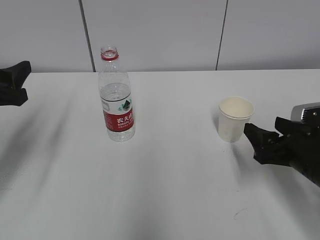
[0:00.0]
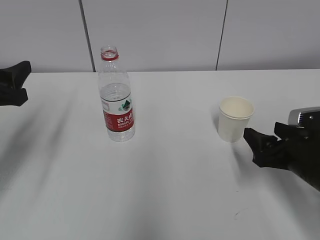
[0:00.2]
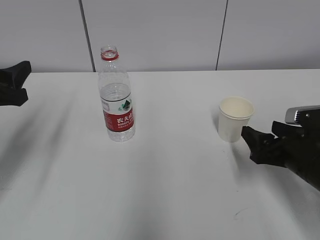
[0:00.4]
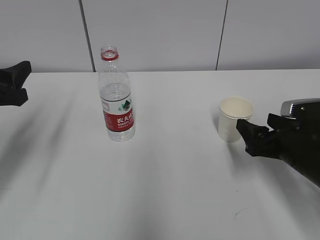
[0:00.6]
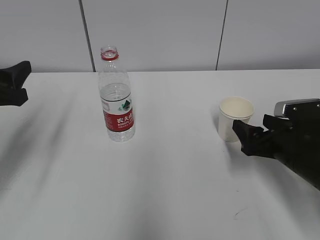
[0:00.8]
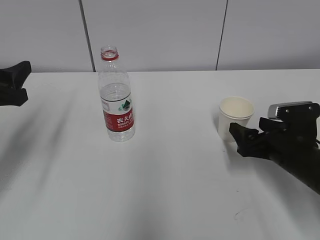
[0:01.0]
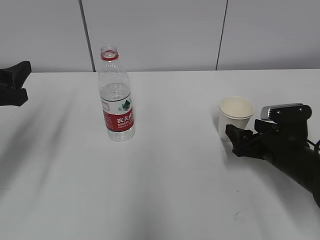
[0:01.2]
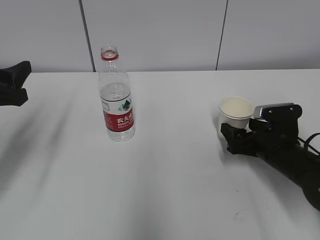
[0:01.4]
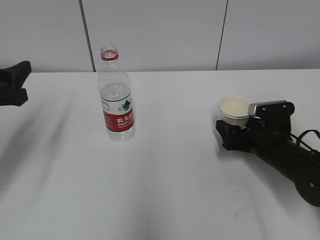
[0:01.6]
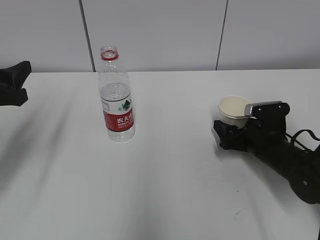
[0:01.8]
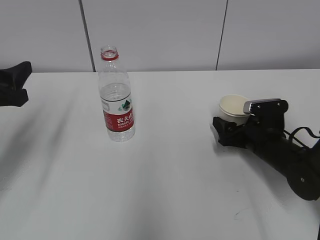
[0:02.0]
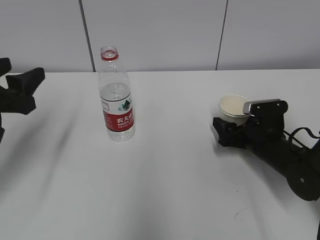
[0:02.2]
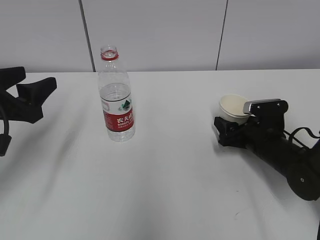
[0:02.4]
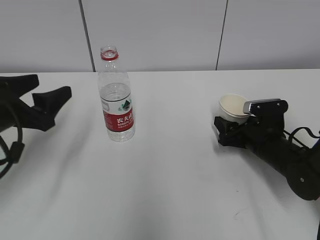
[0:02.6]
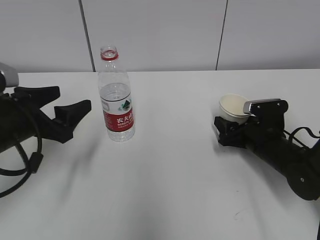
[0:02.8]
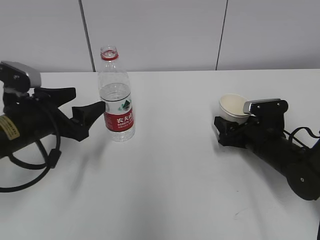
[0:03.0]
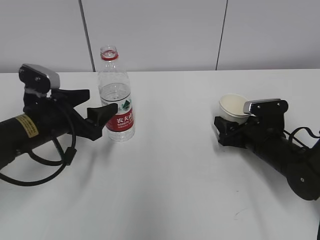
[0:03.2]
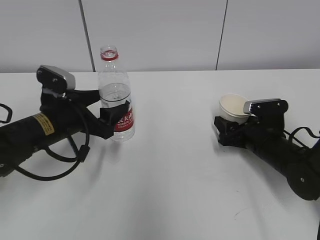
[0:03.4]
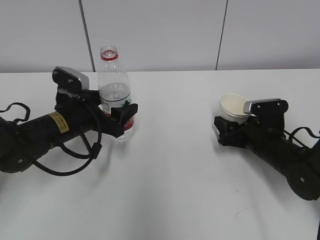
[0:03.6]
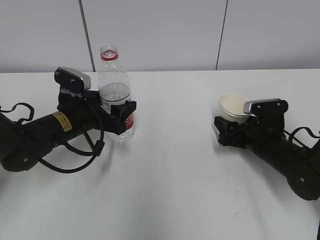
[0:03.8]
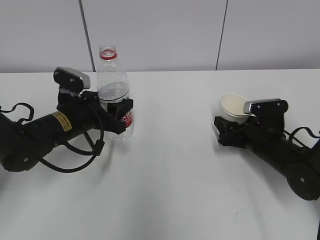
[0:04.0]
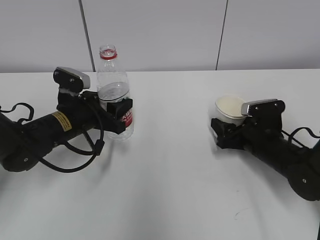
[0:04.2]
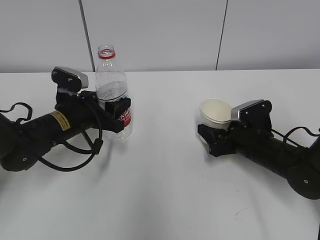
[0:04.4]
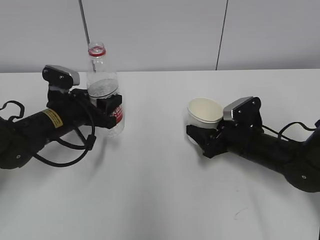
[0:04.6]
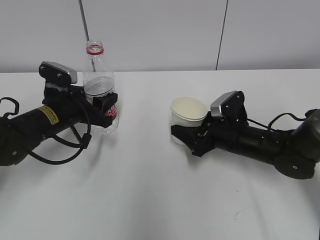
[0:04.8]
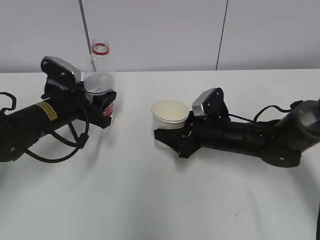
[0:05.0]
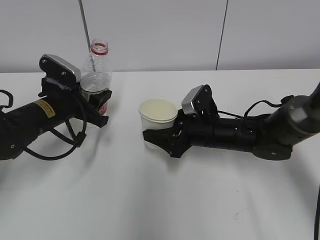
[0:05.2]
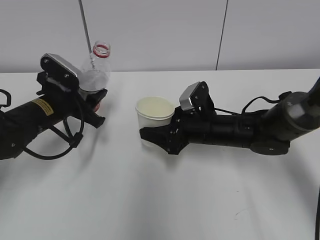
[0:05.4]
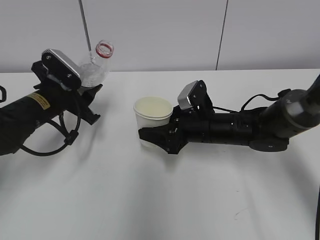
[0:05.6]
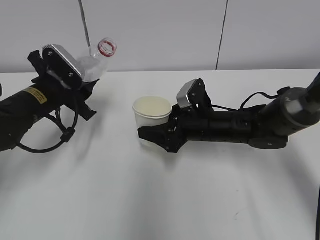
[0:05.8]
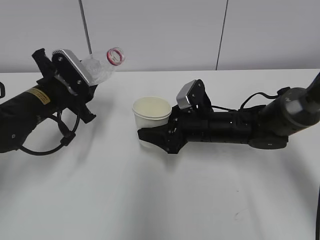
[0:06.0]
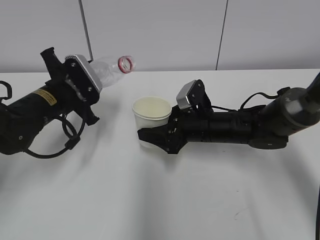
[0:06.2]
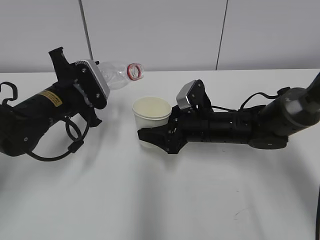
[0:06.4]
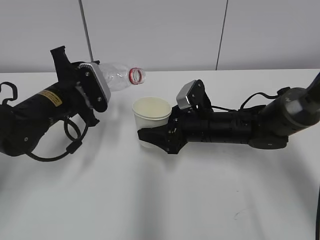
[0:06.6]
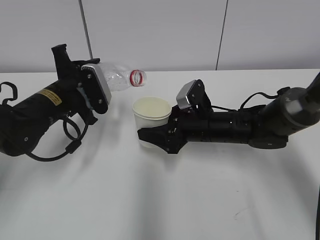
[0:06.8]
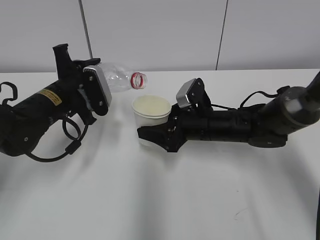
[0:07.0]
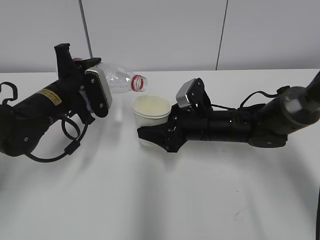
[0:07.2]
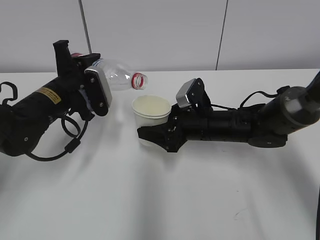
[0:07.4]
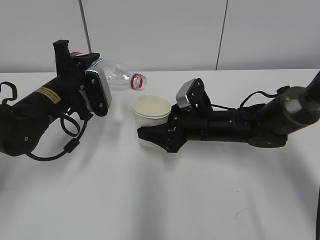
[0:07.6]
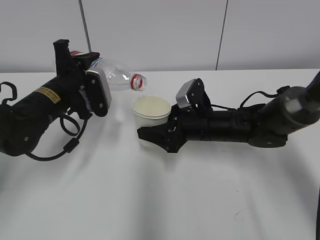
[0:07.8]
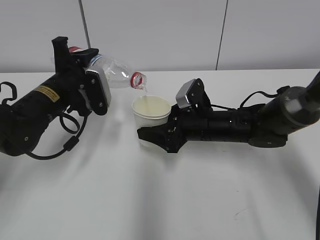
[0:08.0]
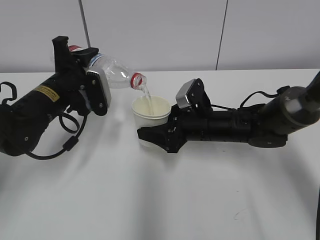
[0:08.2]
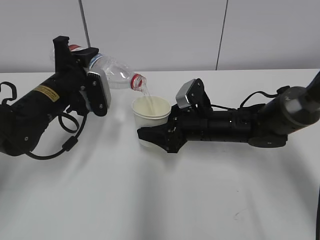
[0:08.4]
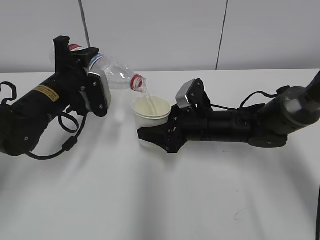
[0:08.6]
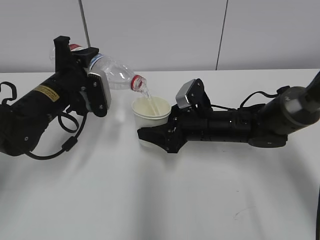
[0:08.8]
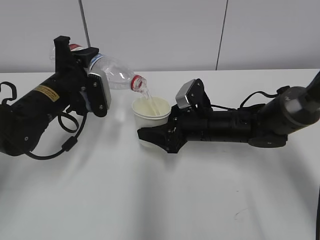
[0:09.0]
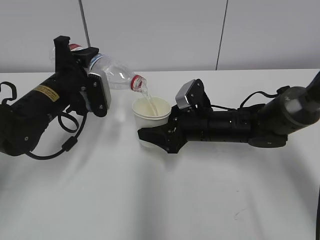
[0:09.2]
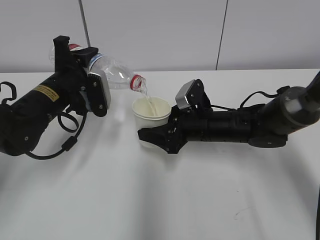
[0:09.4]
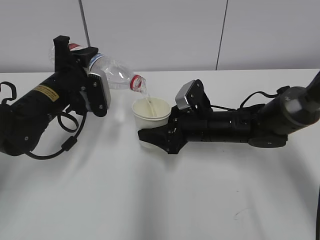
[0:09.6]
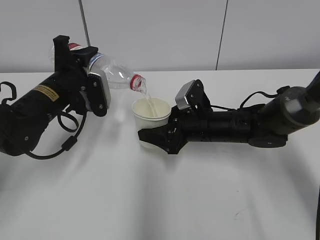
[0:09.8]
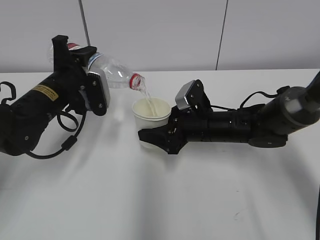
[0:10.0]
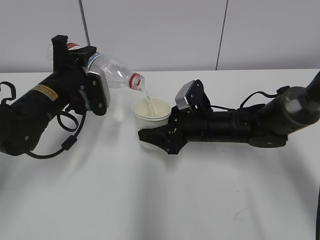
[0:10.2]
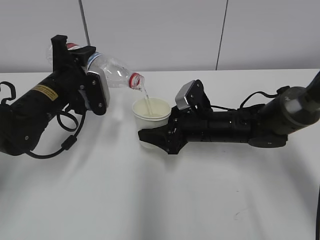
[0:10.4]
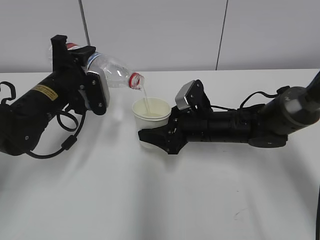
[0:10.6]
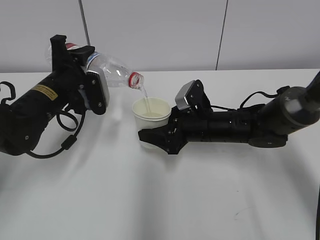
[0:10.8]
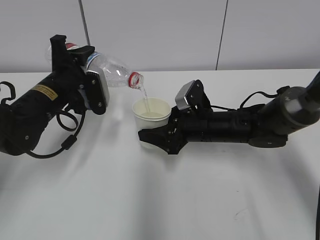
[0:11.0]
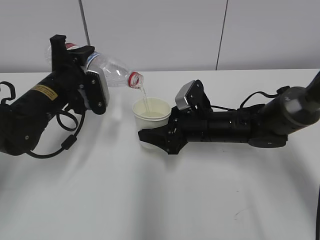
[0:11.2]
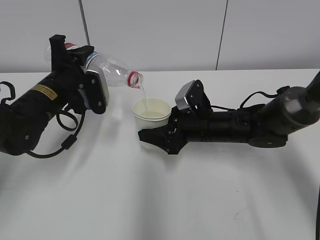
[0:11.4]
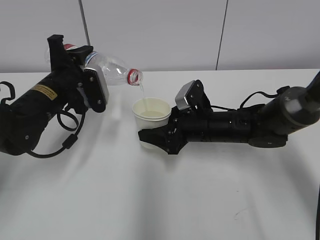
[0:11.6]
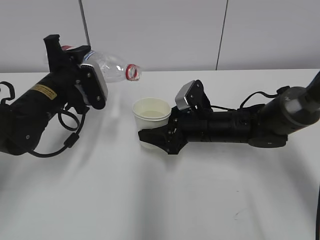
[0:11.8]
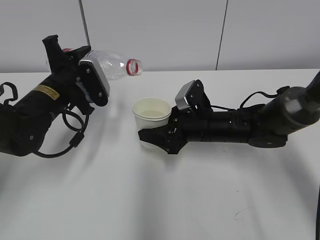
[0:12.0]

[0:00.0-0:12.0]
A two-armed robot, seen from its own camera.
Step, 0:00.0 to 0:02.8: Grab the paper cup with the right hand.
Step, 0:03.2 to 0:06.0: Lift the paper cup with the right hand.
Step, 0:06.2 to 0:09.2: Fill water with the right hand.
Step, 0:06.2 to 0:09.2: Pour water with the left hand.
Step, 0:09.4 to 0:10.2: Collect water with the left hand.
0:00.0 to 0:01.6: The right gripper moves forward and downward, about 10 cm, and opens its fingers.
0:01.6 to 0:03.0: The left gripper goes about 10 cm to the right and downward, and opens, while the right gripper closes.
0:03.0 to 0:04.4: The left gripper is displaced forward by some 5 cm, and closes its fingers.
0:04.4 to 0:06.0: The right gripper moves to the left, approximately 10 cm, while the left gripper changes place by about 5 cm.
0:07.6 to 0:09.0: The grippers make only small movements.
0:09.0 to 0:10.4: Both grippers stay put.
0:10.4 to 0:12.0: There are only small adjustments of the grippers.

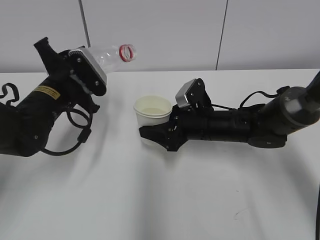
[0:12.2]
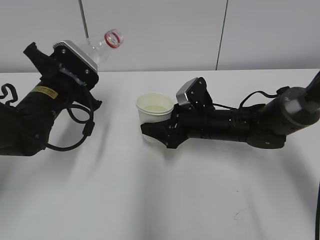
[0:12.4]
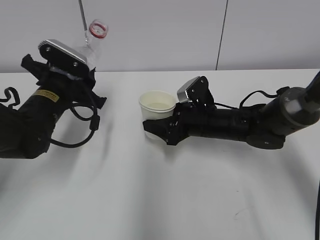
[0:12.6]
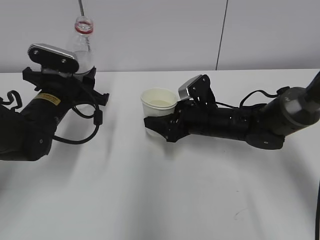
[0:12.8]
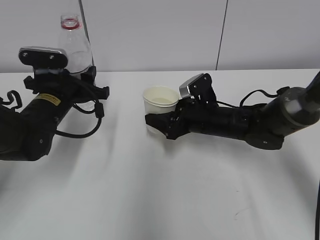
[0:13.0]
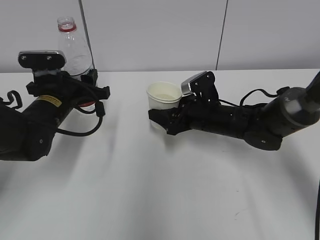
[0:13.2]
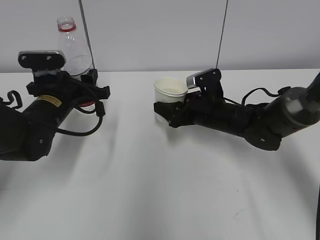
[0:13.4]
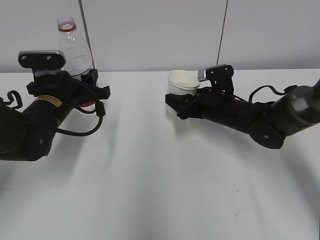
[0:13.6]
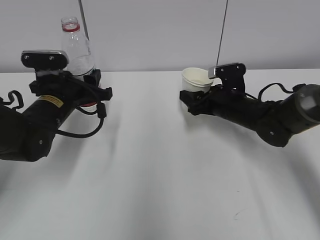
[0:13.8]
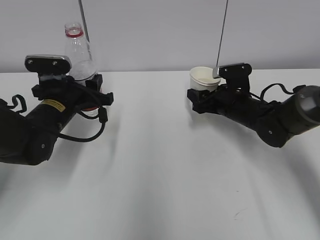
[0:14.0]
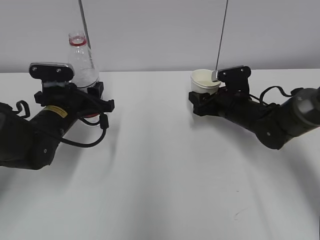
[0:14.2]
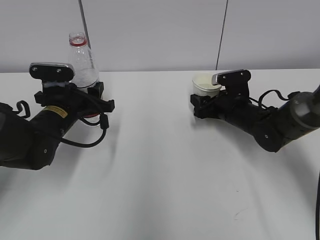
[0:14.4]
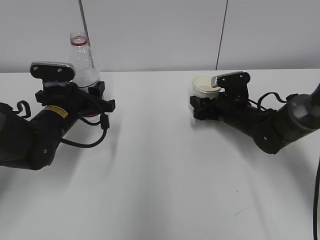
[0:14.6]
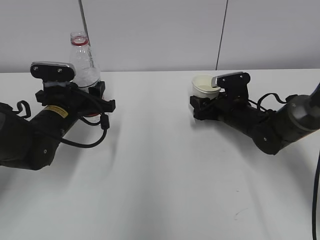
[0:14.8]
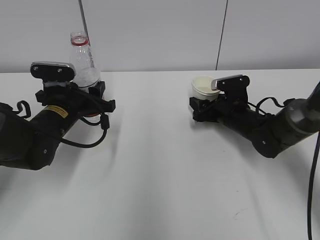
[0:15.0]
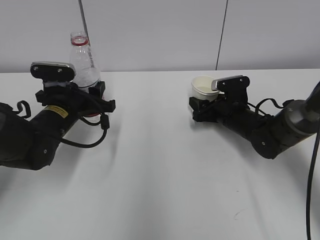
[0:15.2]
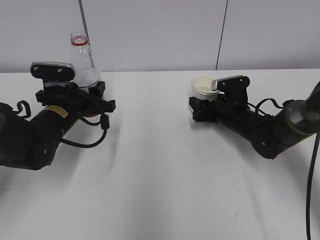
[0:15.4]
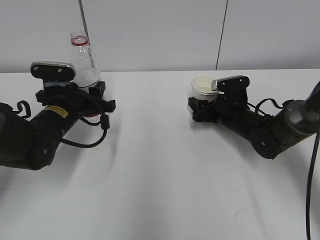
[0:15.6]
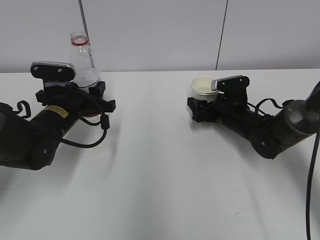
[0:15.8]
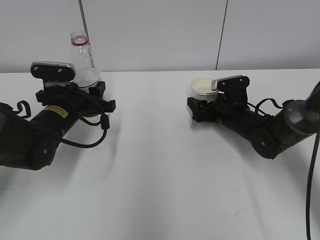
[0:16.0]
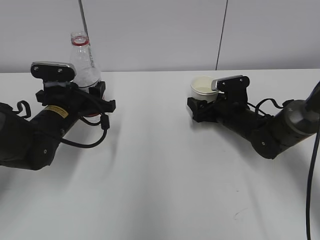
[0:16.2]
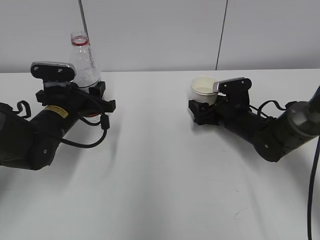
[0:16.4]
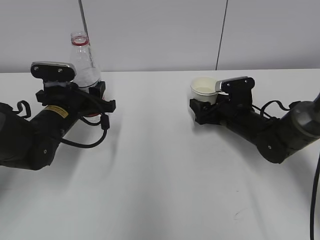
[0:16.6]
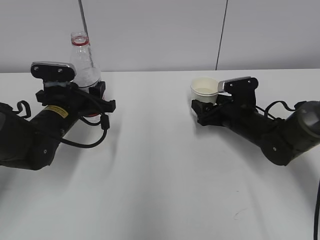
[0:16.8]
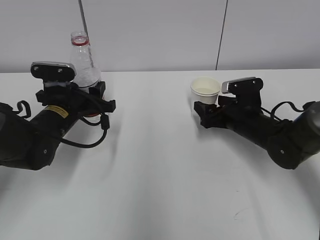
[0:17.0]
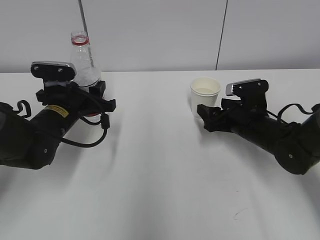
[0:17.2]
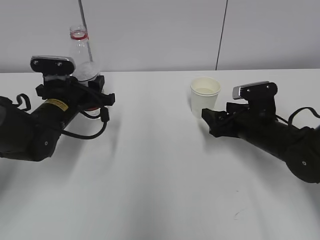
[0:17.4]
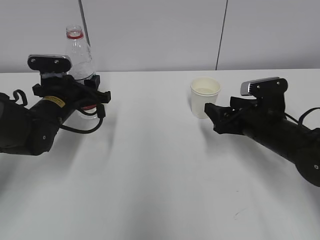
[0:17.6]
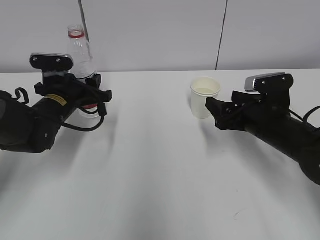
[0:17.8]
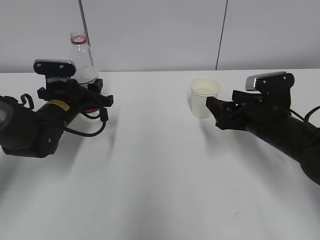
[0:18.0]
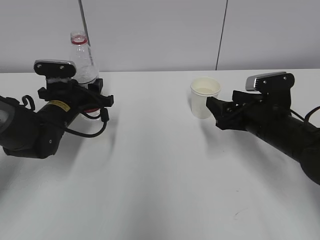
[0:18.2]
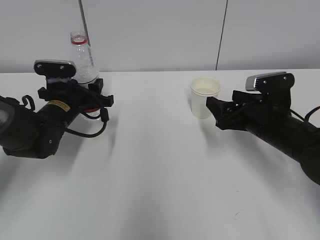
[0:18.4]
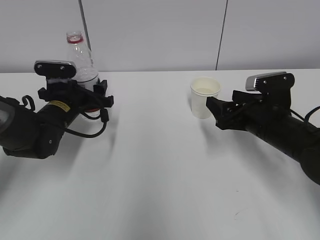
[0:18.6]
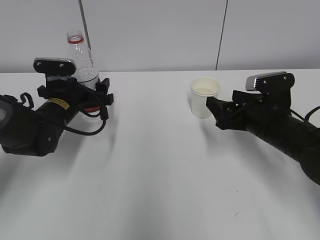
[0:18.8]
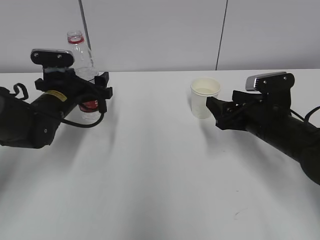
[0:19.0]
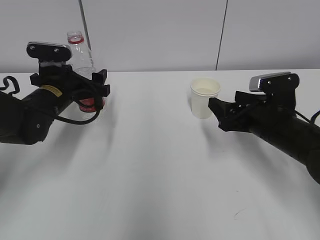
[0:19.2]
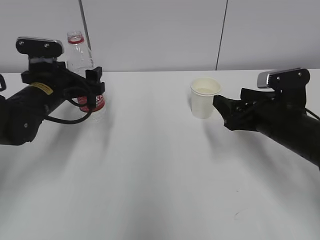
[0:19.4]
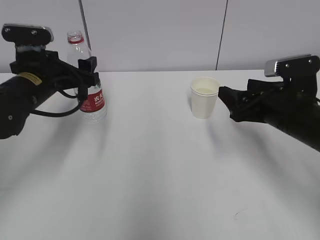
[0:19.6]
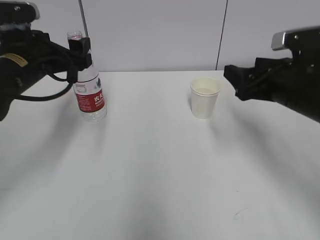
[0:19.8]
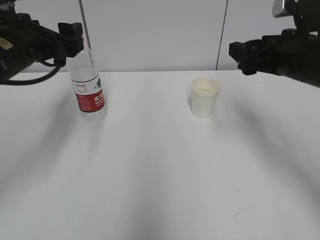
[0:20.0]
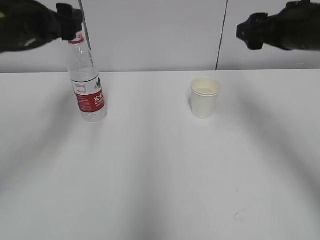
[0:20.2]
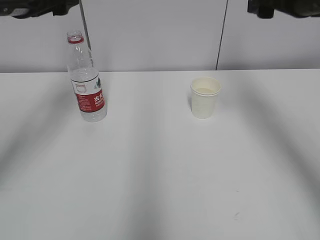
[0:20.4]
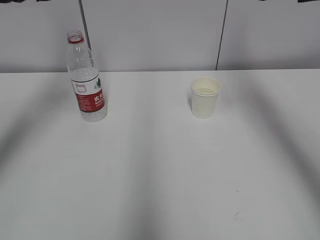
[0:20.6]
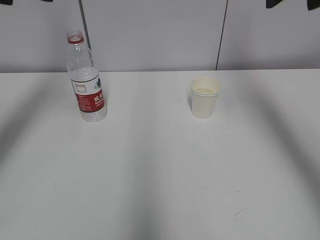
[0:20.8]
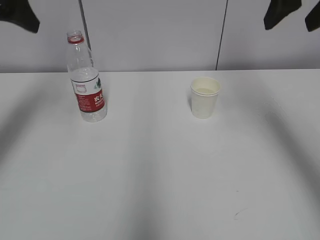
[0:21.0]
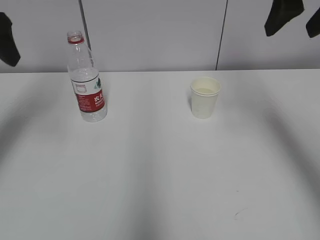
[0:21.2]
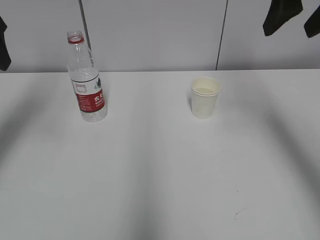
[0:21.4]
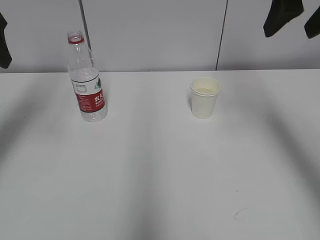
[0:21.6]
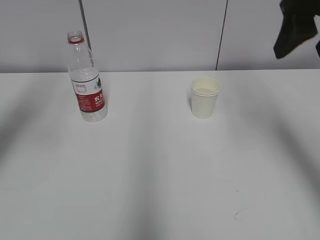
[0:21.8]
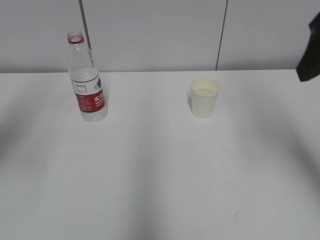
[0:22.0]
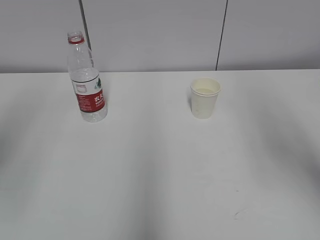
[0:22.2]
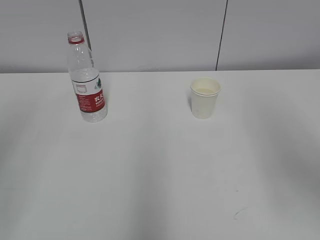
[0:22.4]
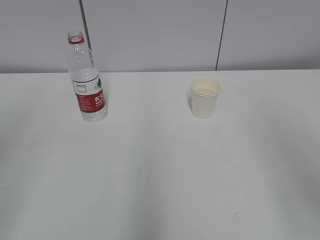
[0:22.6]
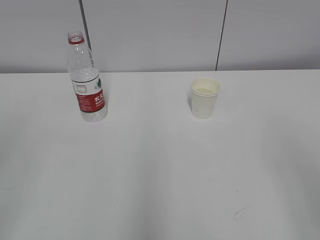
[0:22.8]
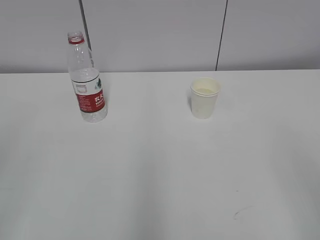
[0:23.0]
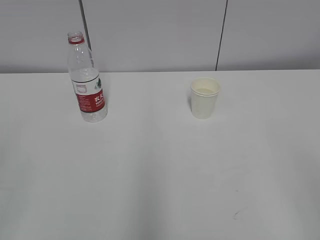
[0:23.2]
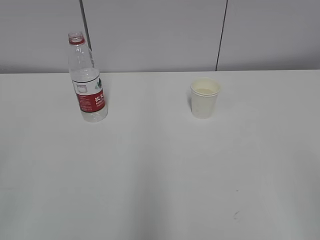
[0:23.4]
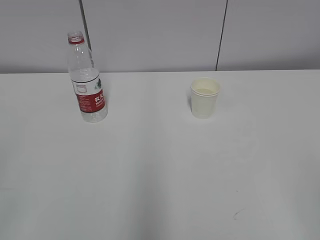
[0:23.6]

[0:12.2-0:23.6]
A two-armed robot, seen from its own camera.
Step, 0:13.6 to 0:15.0: Place the water bottle with the left hand.
0:12.2 to 0:13.6: The right gripper moves about 5 cm.
0:13.6 to 0:15.0: The right gripper ends up some 5 cm from where it was.
0:15.0 to 0:16.4: The right gripper opens.
0:16.4 to 0:17.8: The right gripper goes about 10 cm backward and upward.
0:17.8 to 0:19.4: The left gripper ends up approximately 5 cm from where it was, and opens.
0:19.4 to 0:20.8: The two grippers go roughly 25 cm upward.
0:20.8 to 0:22.2: The two grippers go approximately 15 cm backward.
0:22.2 to 0:23.6: The right gripper moves backward and downward, roughly 25 cm.
